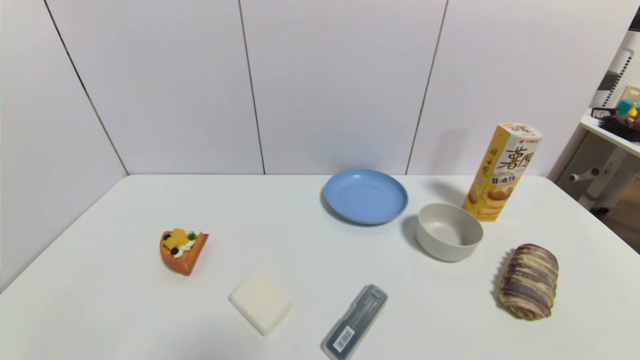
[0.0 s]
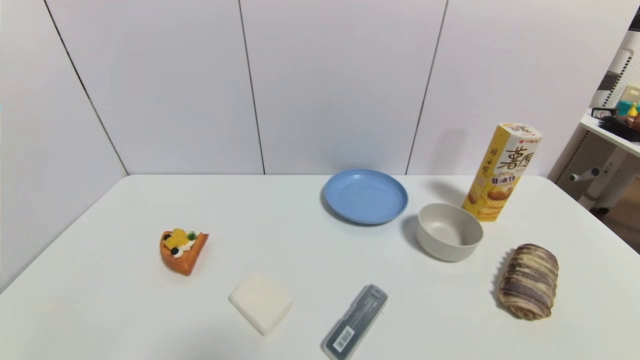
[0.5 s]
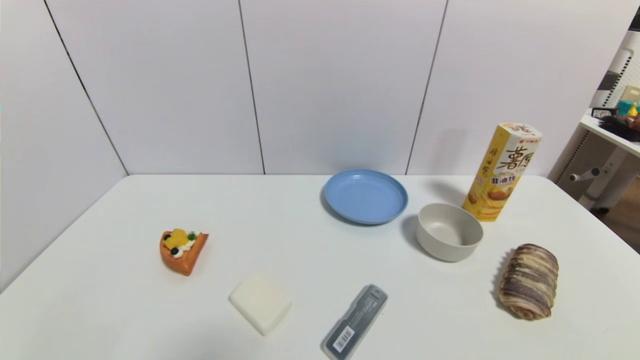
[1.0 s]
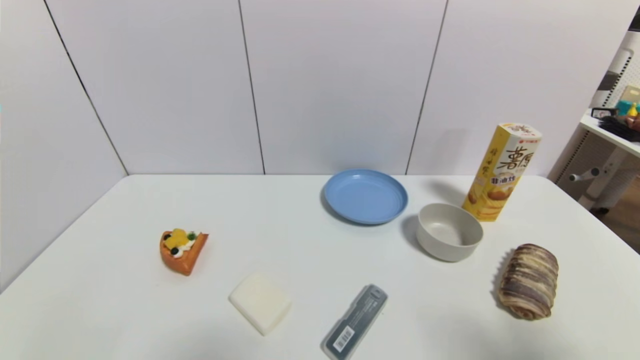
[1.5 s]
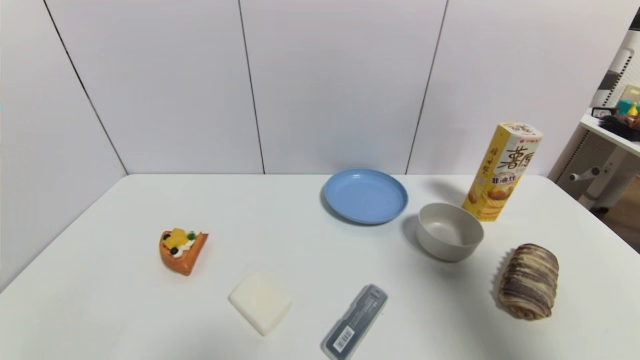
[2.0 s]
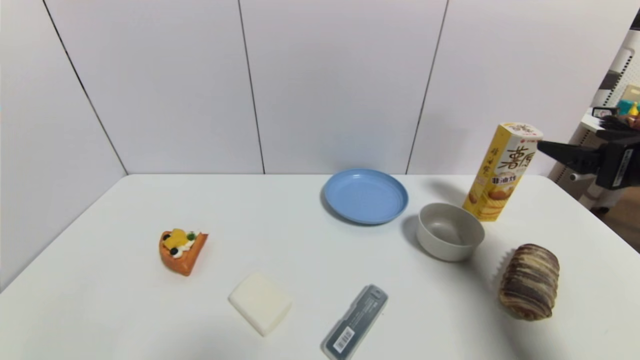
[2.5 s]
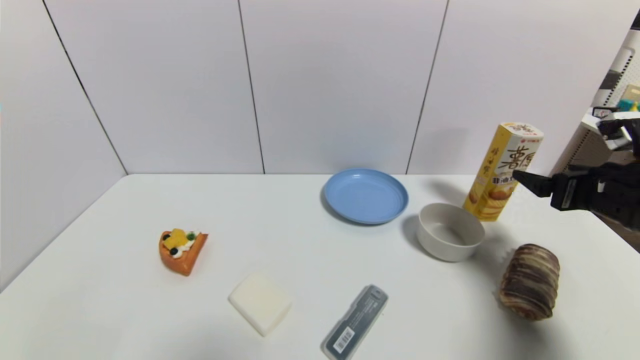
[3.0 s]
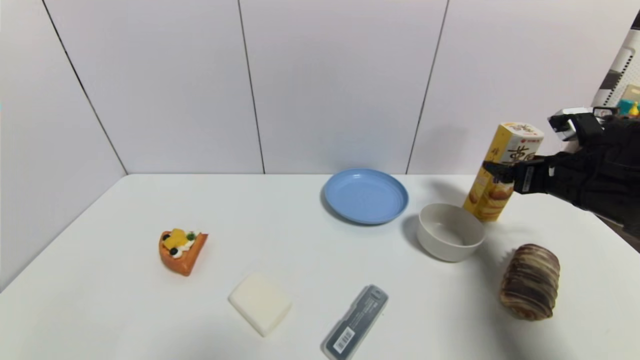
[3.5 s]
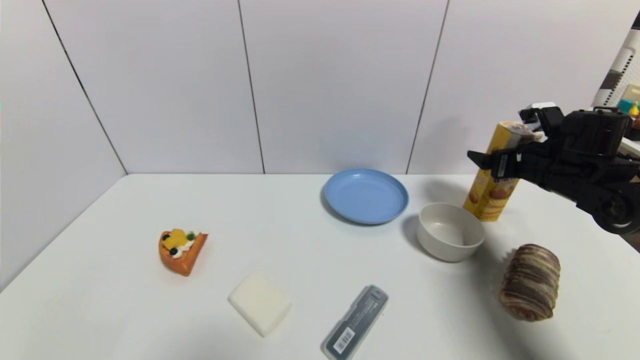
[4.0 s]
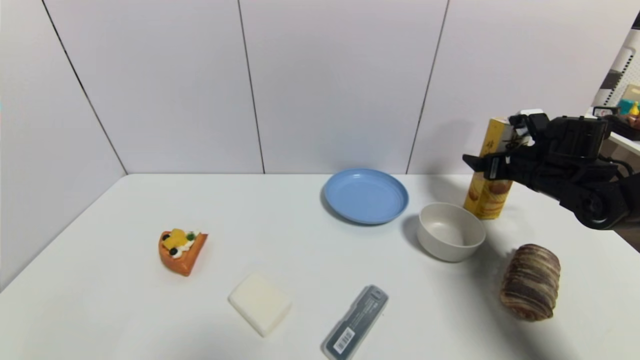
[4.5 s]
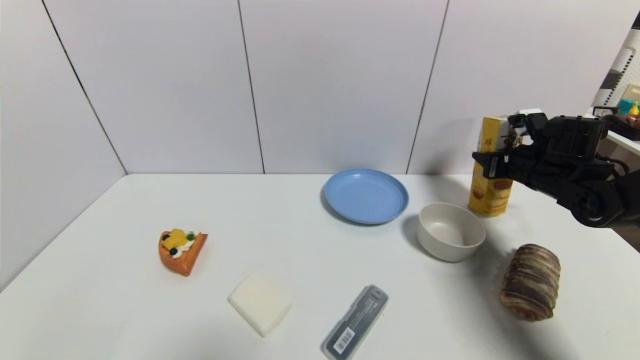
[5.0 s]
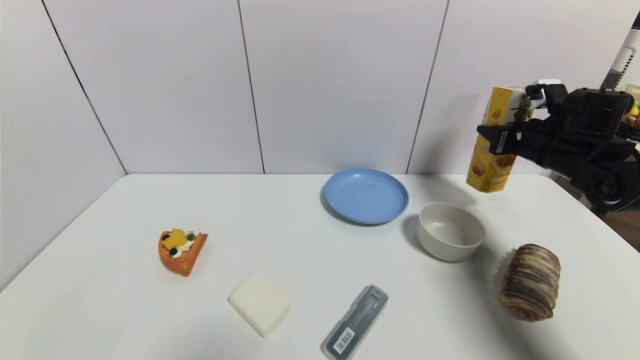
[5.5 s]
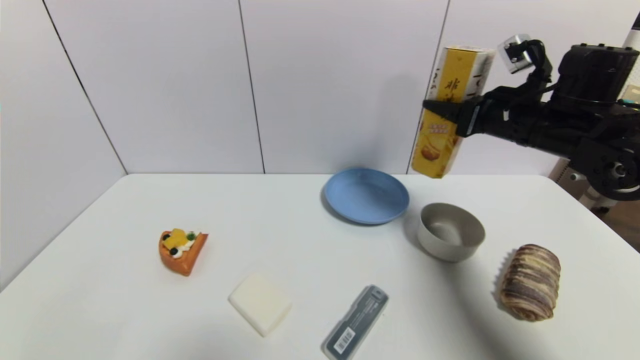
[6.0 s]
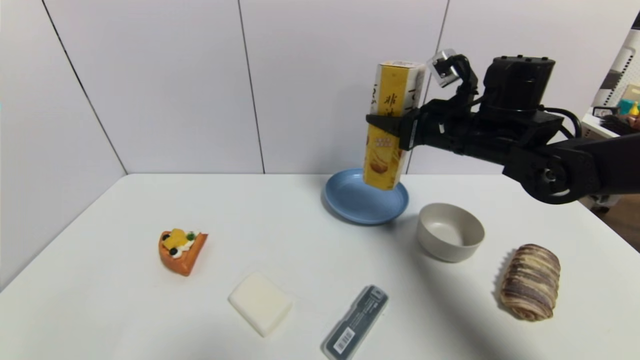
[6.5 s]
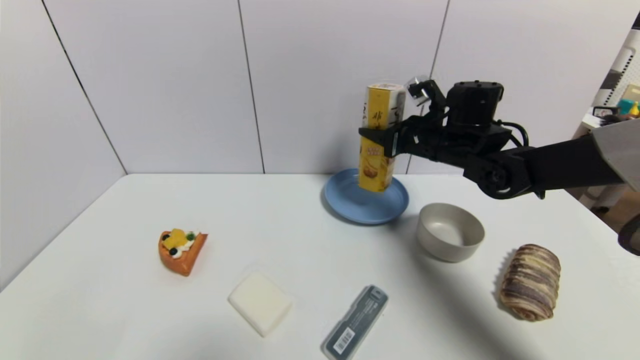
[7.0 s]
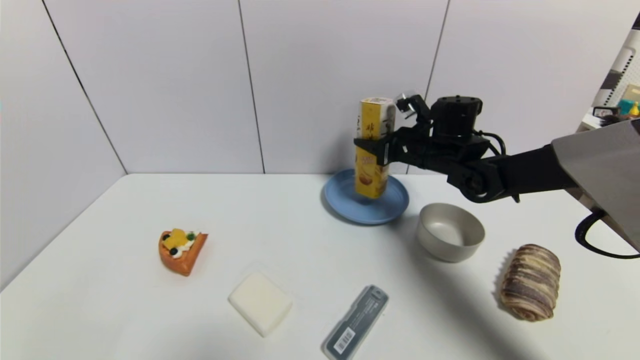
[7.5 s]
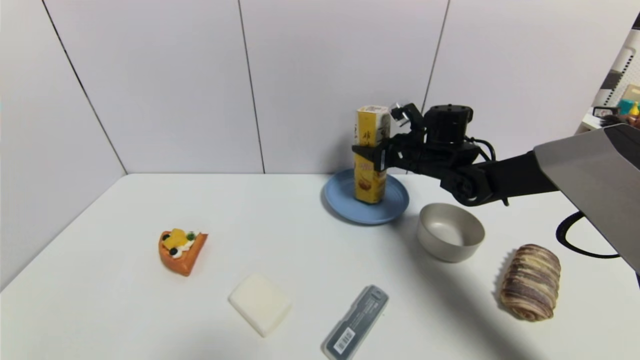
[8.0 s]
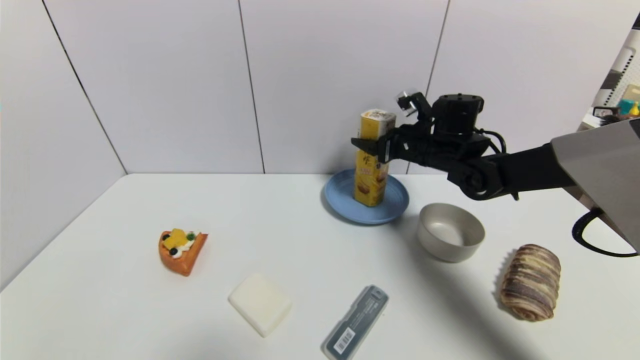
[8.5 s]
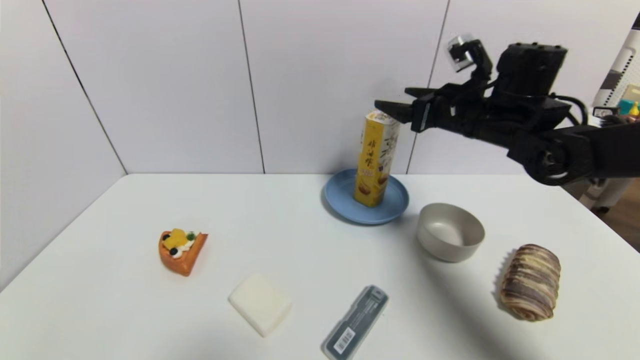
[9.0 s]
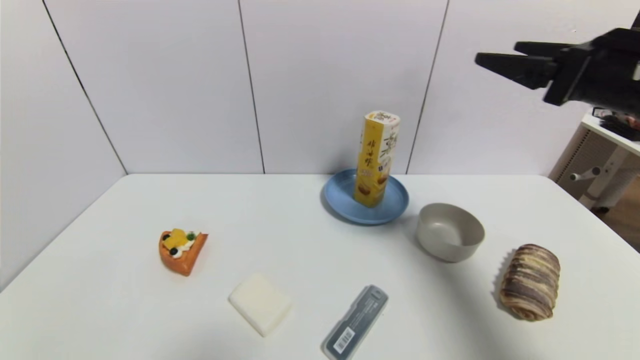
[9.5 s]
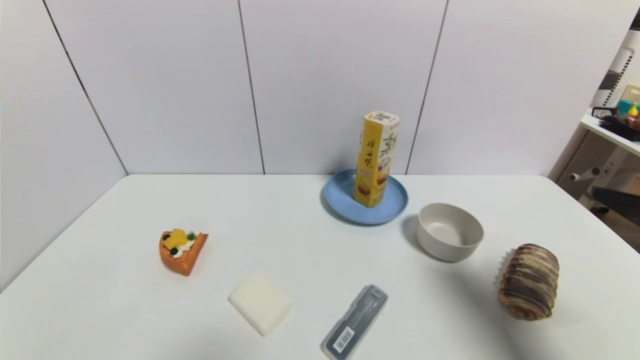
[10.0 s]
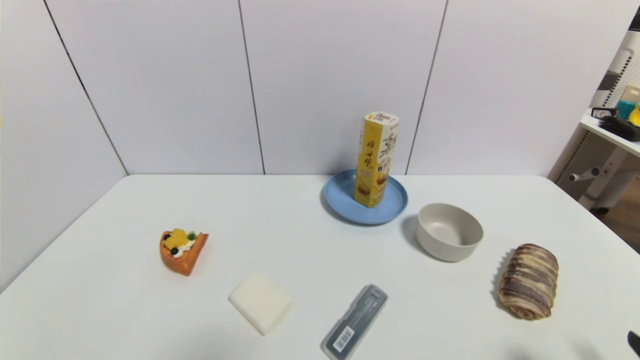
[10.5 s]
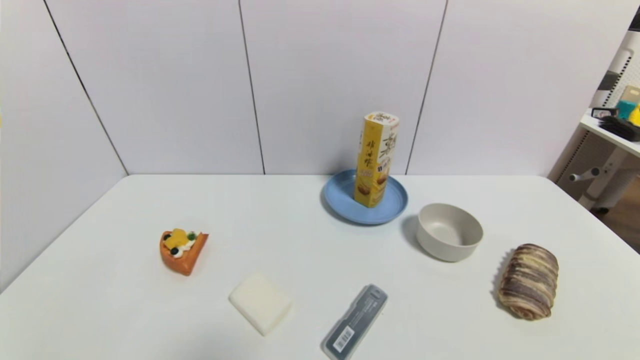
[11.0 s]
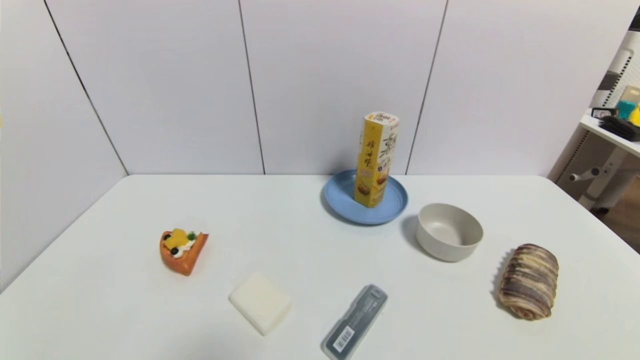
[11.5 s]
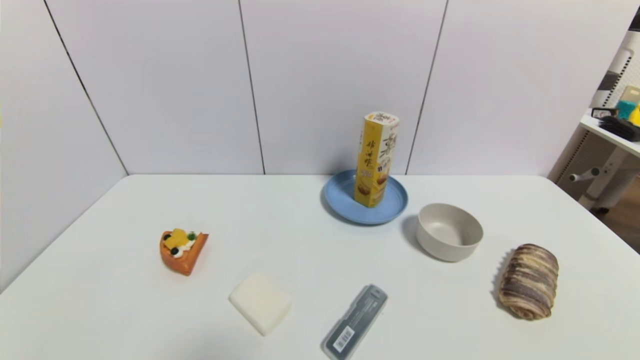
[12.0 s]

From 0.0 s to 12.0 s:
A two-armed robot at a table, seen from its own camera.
Task of the whole recording: use a gripper to pick the target object and place on the blue plate.
Step, from 0.0 s to 5.0 s: Grasp the potato chips with the right gripper.
Step, from 5.5 s to 8.5 s: Place the potato chips on the blue plate with the right gripper.
From 0.0 s to 2.0 s: The right gripper heads upward and forward, covering approximately 30 cm.
From 2.0 s to 4.0 s: The right gripper shifts roughly 30 cm forward and downward.
From 4.0 s to 6.0 s: The right gripper shifts roughly 10 cm upward and to the left, and closes.
From 6.0 s to 8.0 s: The right gripper is displaced forward, downward and to the left by some 15 cm.
From 8.0 s to 10.0 s: The right gripper heads backward and to the right, covering approximately 35 cm, and opens.
From 10.0 s to 12.0 s: The right gripper moves downward and backward, approximately 25 cm.
